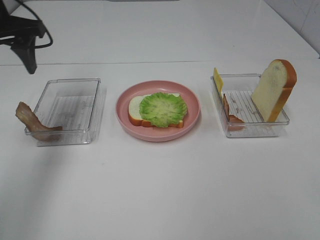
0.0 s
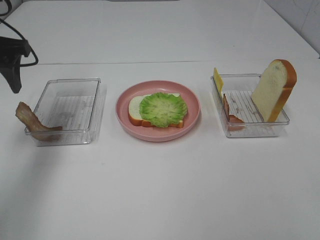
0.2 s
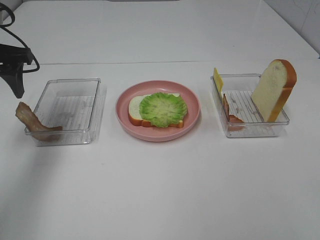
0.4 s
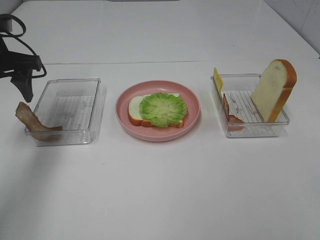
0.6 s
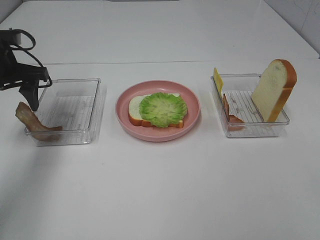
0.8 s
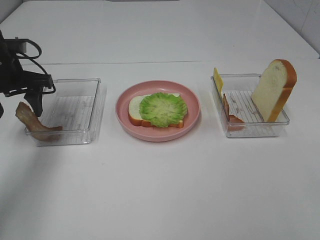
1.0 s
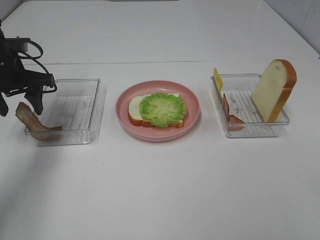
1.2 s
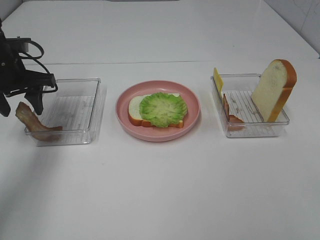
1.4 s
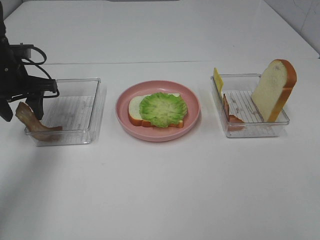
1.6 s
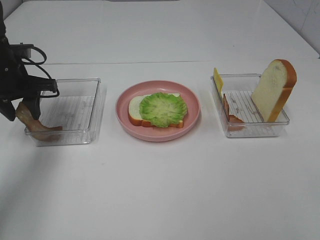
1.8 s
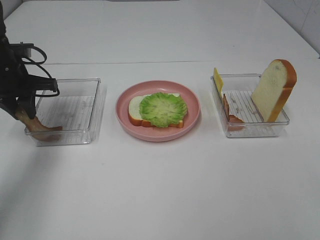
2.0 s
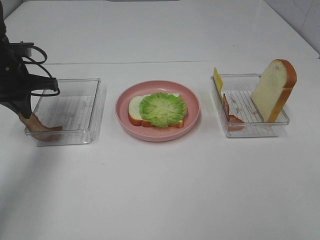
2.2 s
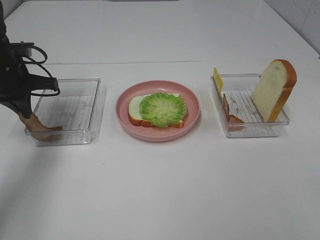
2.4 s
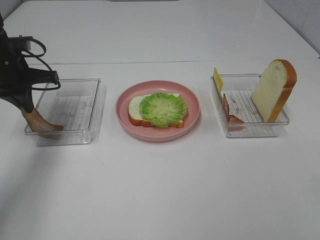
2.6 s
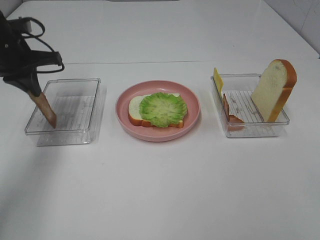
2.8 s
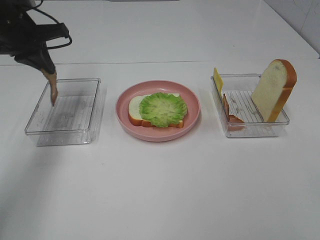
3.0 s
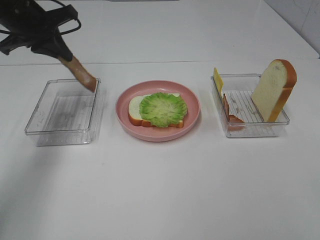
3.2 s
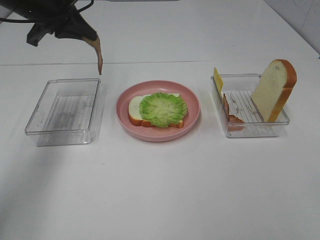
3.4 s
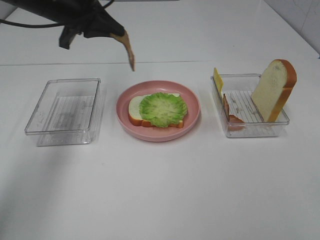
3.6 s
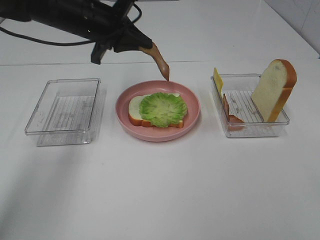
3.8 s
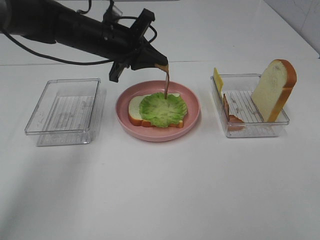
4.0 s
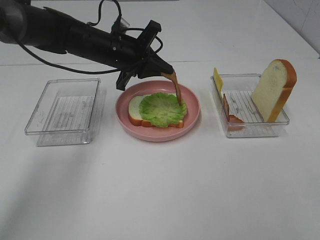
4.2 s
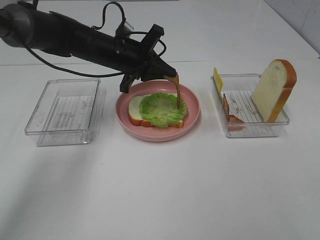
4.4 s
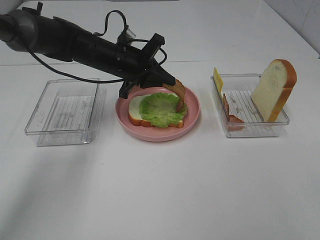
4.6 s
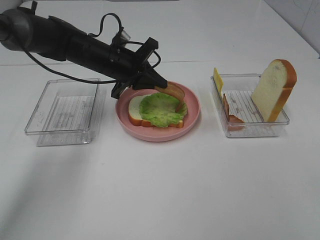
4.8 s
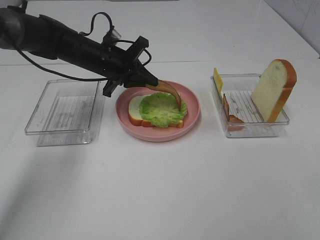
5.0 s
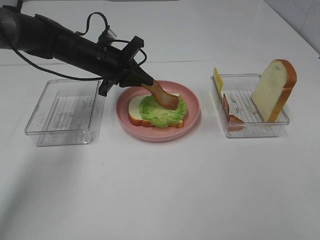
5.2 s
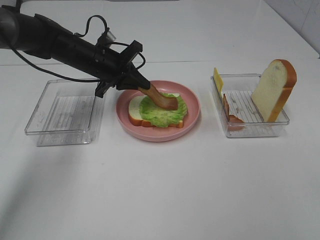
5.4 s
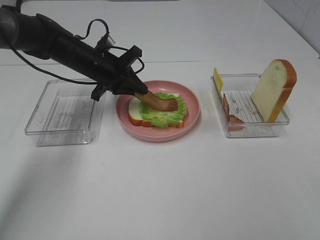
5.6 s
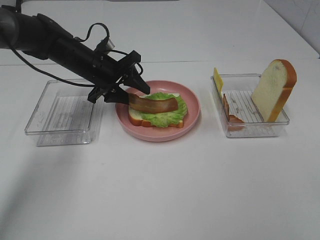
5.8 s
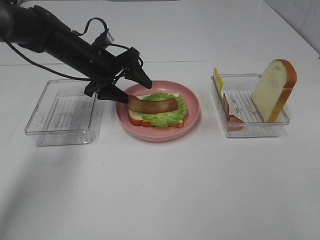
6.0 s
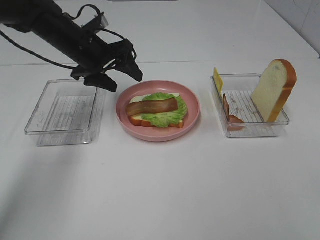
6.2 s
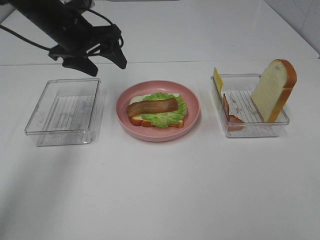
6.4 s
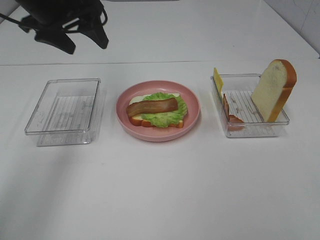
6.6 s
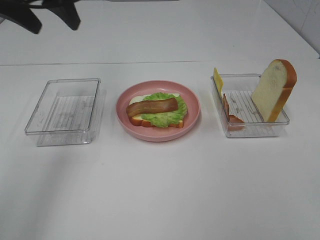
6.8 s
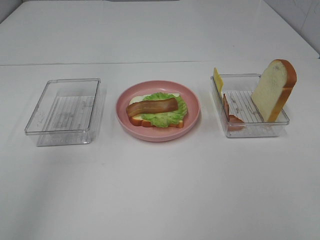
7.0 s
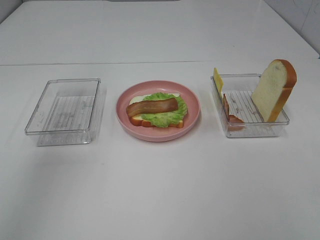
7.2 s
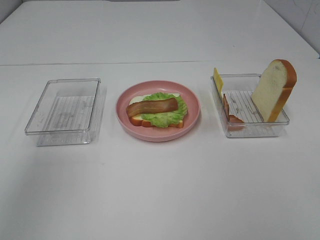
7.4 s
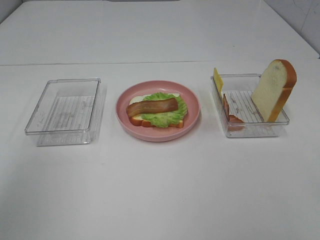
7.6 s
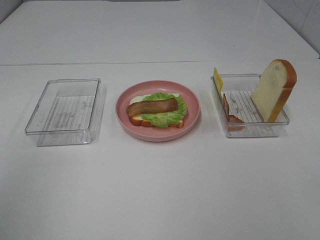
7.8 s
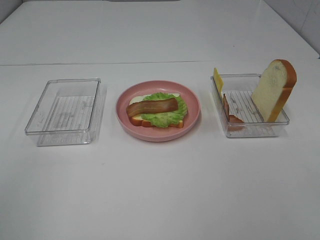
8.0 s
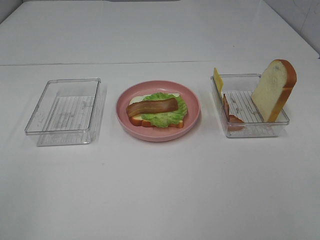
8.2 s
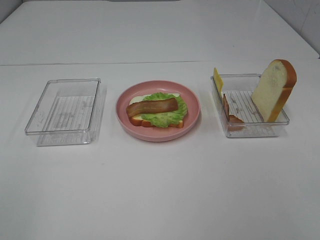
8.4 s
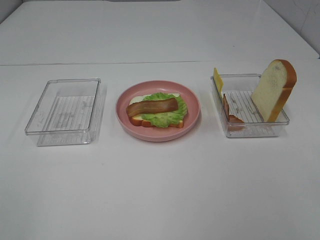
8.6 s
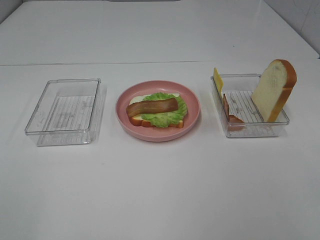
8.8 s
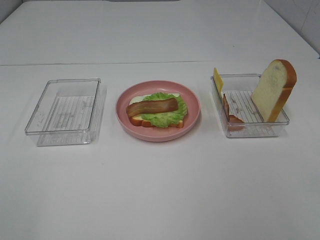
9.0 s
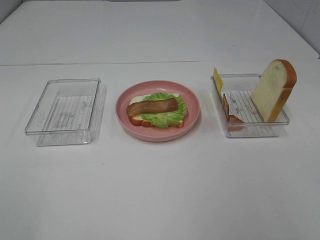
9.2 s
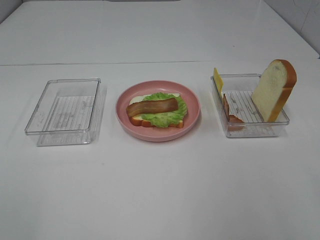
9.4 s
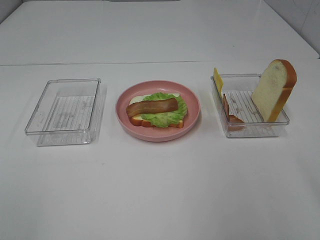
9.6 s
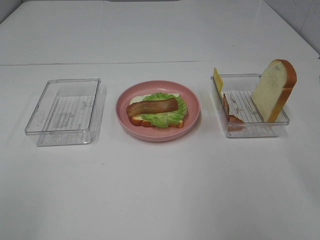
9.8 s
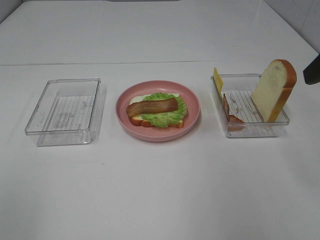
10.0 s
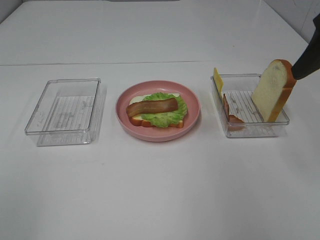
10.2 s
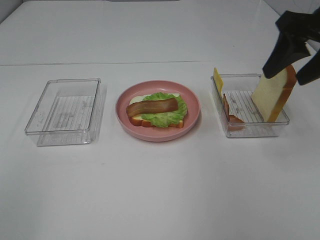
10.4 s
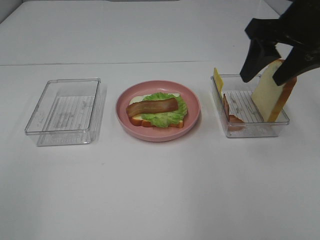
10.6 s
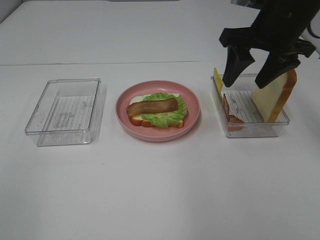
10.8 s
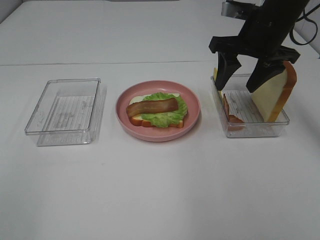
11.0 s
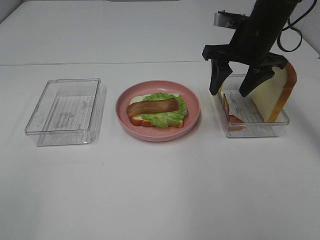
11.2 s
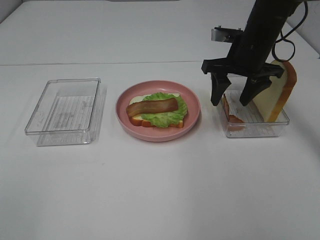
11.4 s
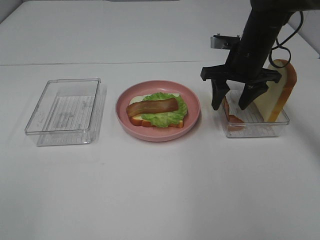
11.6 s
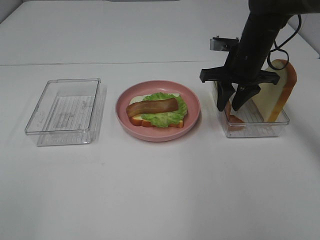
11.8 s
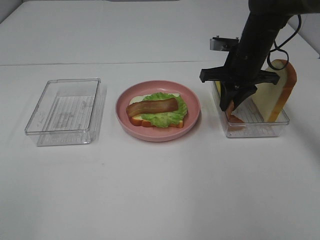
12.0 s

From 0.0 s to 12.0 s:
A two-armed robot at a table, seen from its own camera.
Task of the whole recording: Make sandwiches.
Step, from 0.0 s to 2.6 s: Left hand:grab the bacon.
Step, from 2.8 s to 6.2 s: Left hand:place bacon on lettuce slice.
From 0.0 s to 1.6 s: The left gripper shifts roughly 10 cm downward.
From 1.6 s to 3.0 s: The left gripper moves upward, roughly 10 cm, and closes its fingers.
From 3.0 s to 4.4 s: The left gripper goes roughly 20 cm to the right and downward.
From 4.4 s to 6.0 s: The left gripper is displaced to the left by some 5 cm, and opens its fingers.
From 6.0 s to 7.6 s: The left gripper is displaced backward, upward and to the left by approximately 40 cm.
From 9.0 s to 10.4 s: The right gripper shifts approximately 30 cm forward.
From 10.4 s to 12.0 s: The right gripper goes some 20 cm downward, forward and to the left, and closes its fingers.

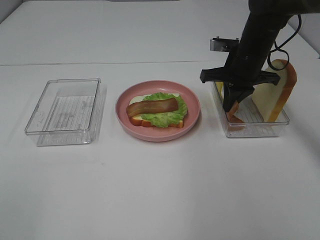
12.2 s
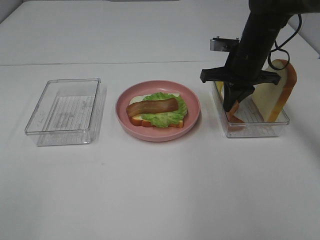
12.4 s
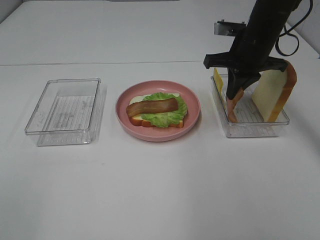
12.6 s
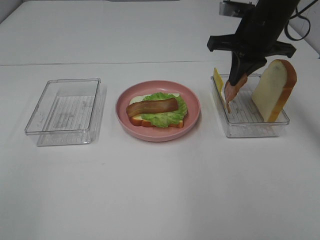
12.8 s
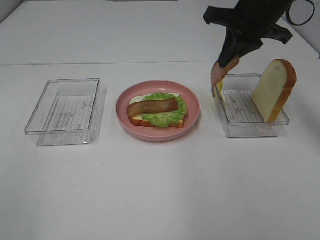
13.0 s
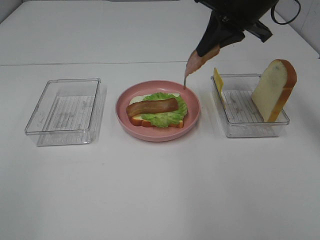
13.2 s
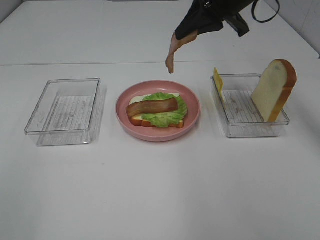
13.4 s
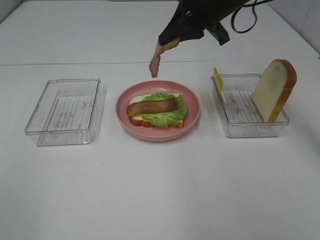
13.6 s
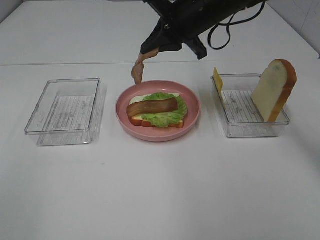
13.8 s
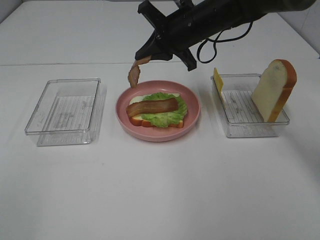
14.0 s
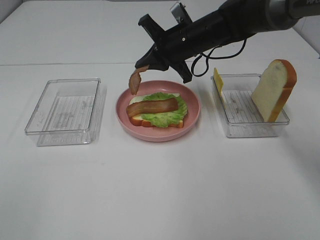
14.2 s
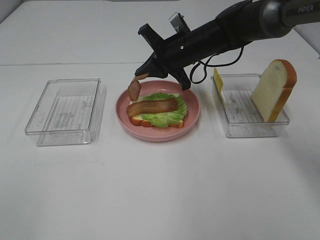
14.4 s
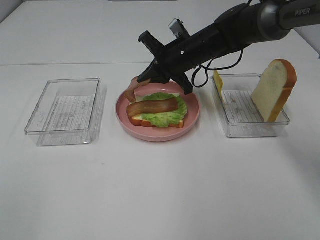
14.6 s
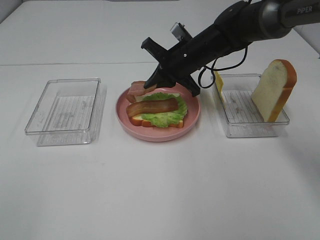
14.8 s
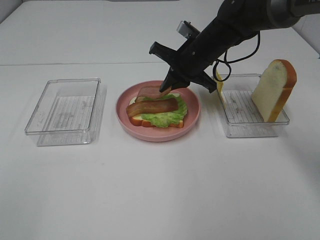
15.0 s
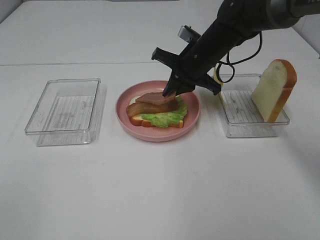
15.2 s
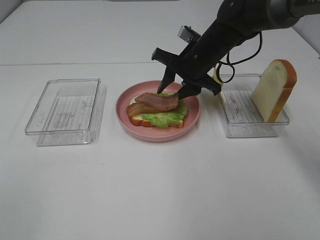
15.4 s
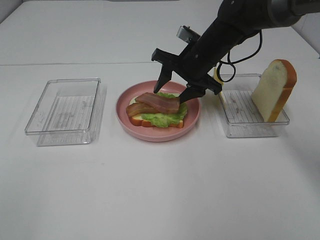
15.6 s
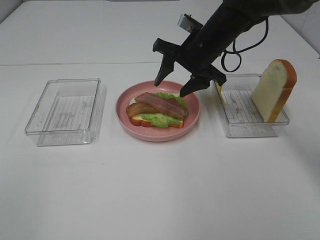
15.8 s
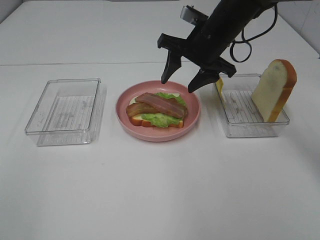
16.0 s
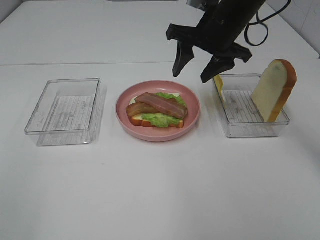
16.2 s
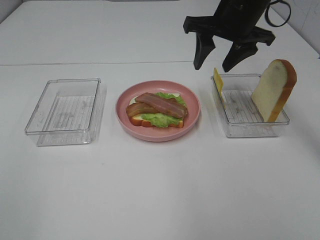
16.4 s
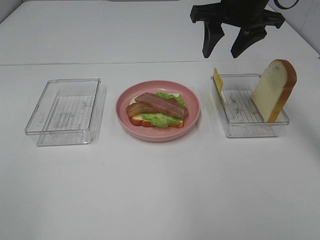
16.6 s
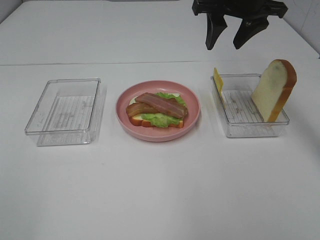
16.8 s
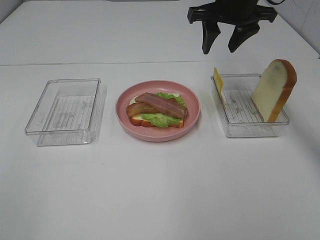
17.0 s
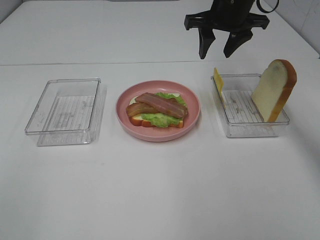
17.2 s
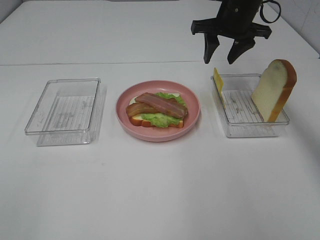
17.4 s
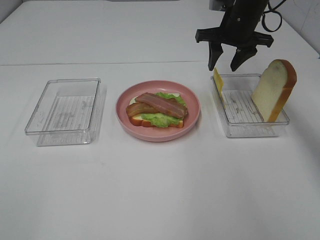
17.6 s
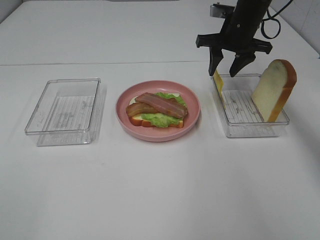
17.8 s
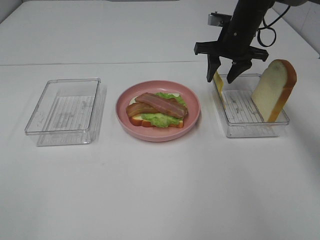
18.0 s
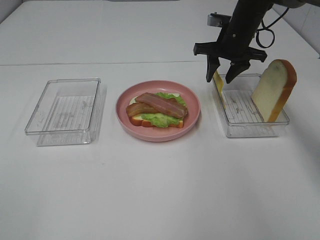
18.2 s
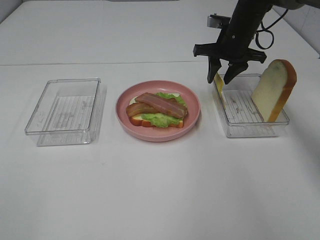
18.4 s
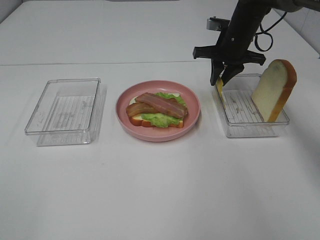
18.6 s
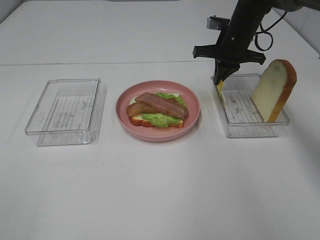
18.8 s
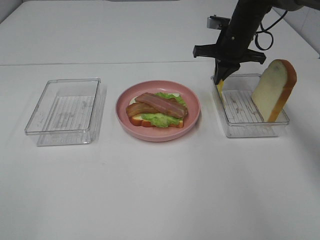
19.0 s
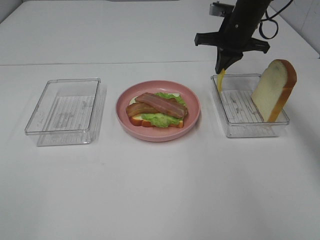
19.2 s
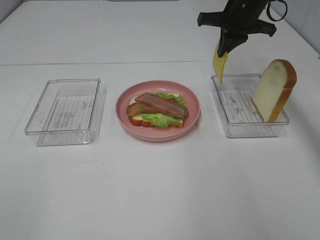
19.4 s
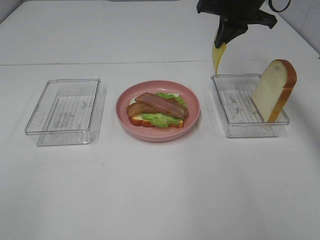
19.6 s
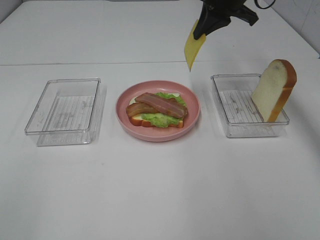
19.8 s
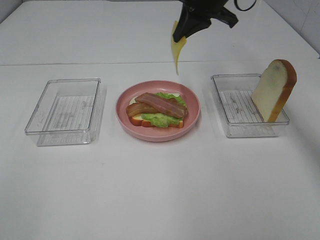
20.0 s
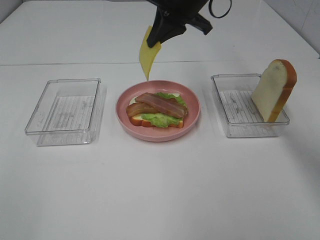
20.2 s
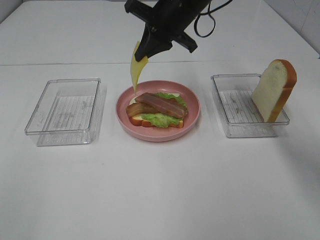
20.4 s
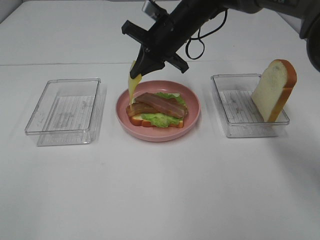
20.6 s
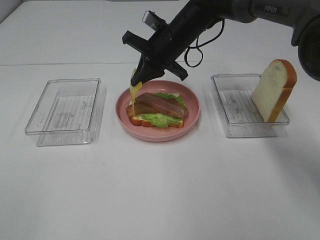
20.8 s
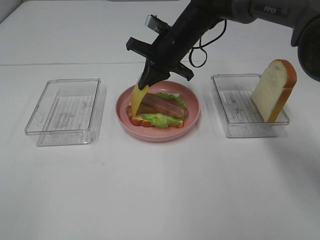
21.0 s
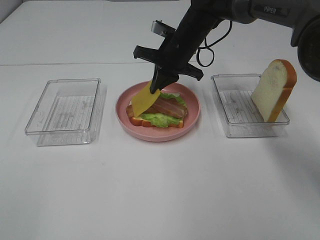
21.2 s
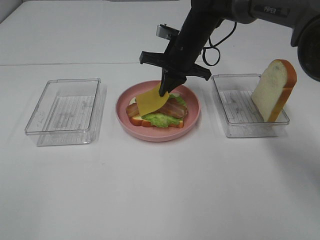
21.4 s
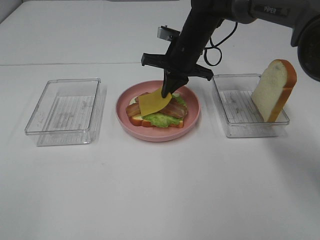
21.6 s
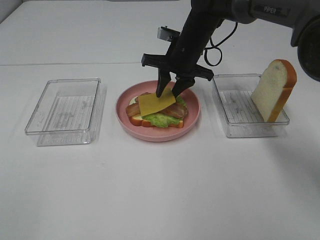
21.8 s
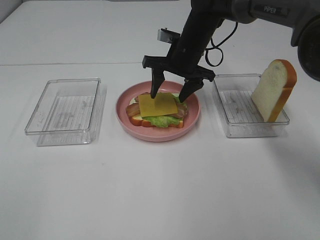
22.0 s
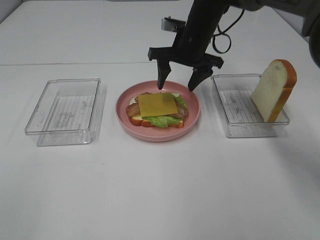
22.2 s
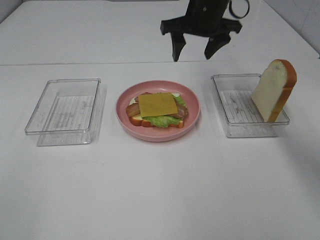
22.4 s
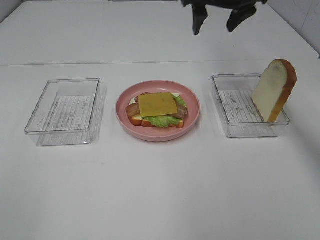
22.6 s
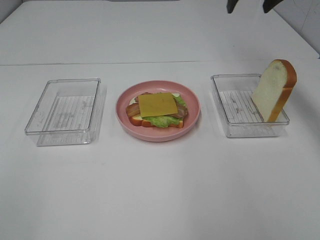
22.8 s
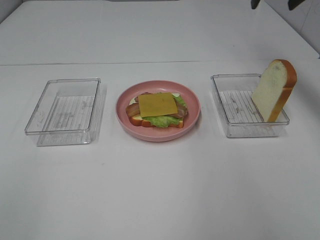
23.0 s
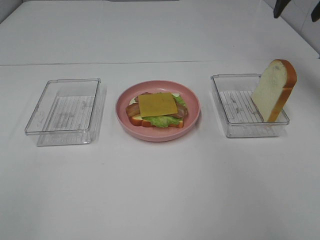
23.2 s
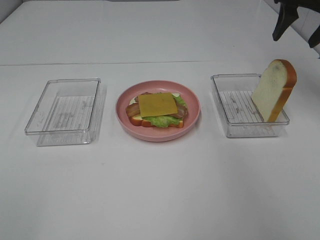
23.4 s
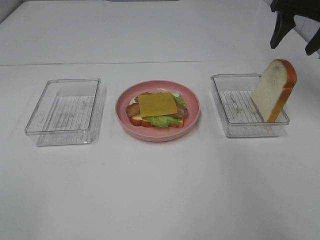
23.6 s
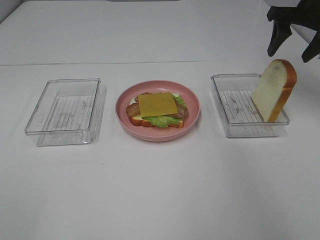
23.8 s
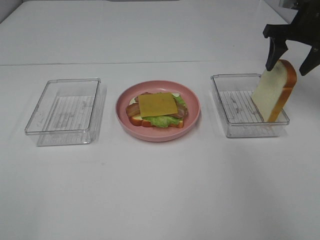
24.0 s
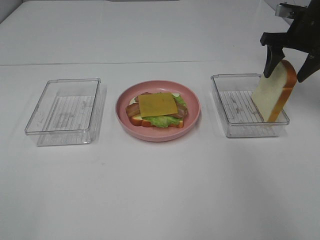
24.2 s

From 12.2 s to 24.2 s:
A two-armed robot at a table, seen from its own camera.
Task of the whole recording: Make sandwiches.
Step, from 12.4 s to 16.2 s: Right hand:place bacon on bacon.
Step, from 16.4 s to 18.6 s: Right hand:grab the cheese slice.
Step, from 18.8 s to 22.2 s: Right hand:place the cheese slice on top of the bacon.
From 12.2 s to 13.8 s: The right gripper moves to the left and upward, about 10 cm.
From 13.8 s to 15.2 s: The right gripper is displaced downward by some 10 cm.
From 15.2 s to 16.6 s: The right gripper travels upward by about 15 cm, and opens its fingers.
From 16.6 s to 18.2 s: The right gripper moves downward and forward, roughly 15 cm.
From 18.2 s to 19.8 s: The right gripper travels upward by about 10 cm, and closes up.
From 19.8 s to 21.2 s: The right gripper heads downward and to the left, covering about 15 cm.
From 21.2 s to 22.6 s: The right gripper travels upward and to the right by some 15 cm, and opens up.
From 22.6 s to 24.2 s: The right gripper shifts some 20 cm to the right and downward.
